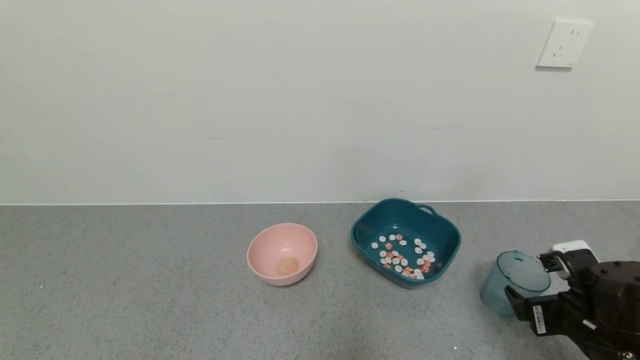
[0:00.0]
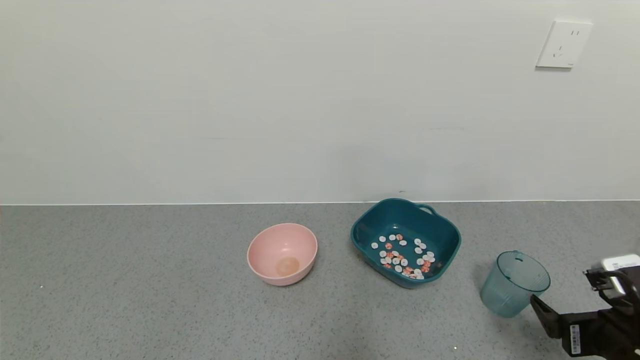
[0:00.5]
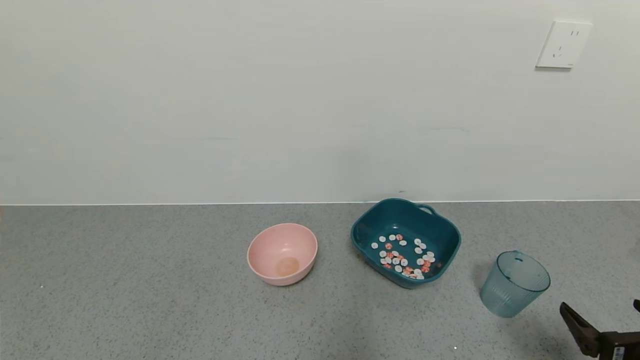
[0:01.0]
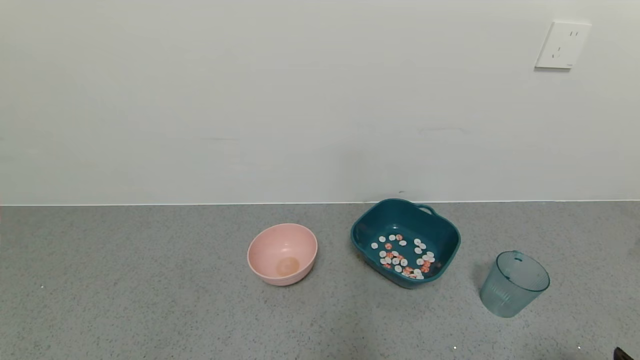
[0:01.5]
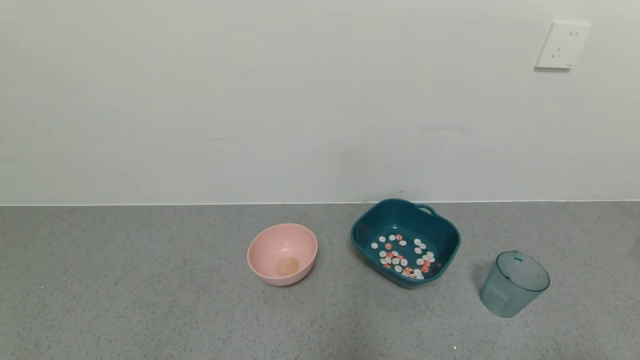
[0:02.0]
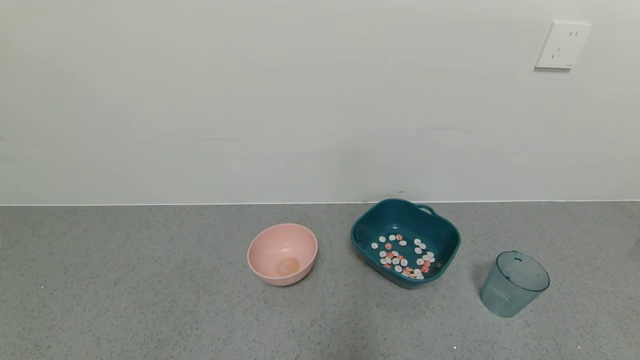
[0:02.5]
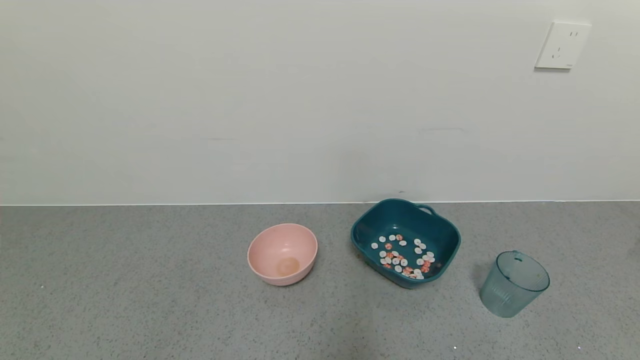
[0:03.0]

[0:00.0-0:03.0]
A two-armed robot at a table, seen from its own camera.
Task of the whole recording: use a gripper to pick up the cup and pour the solid into a bowl or tray.
0:00.0 to 0:01.5: The right gripper shifts about 15 cm backward.
